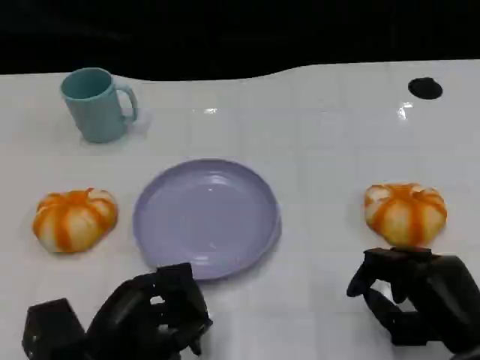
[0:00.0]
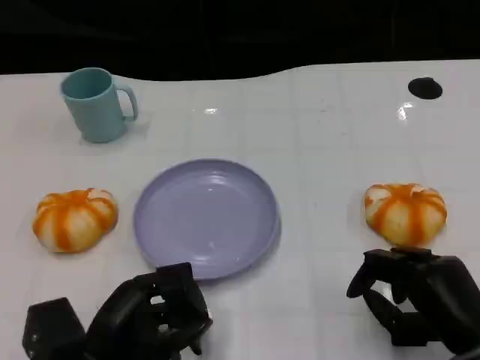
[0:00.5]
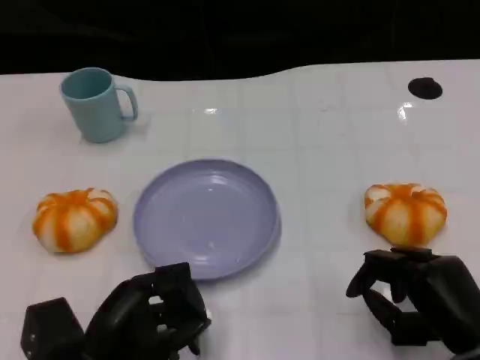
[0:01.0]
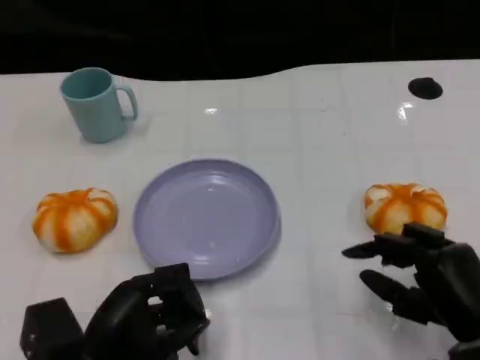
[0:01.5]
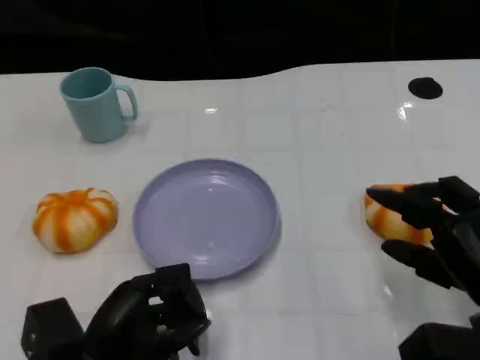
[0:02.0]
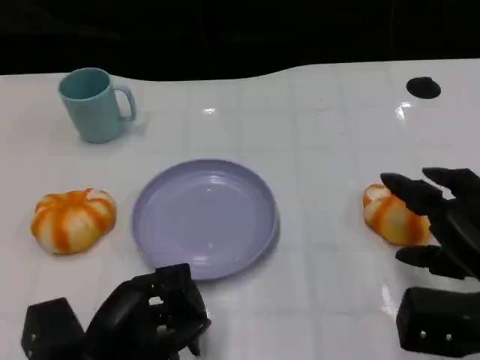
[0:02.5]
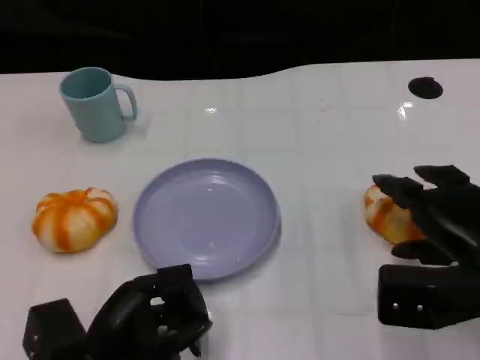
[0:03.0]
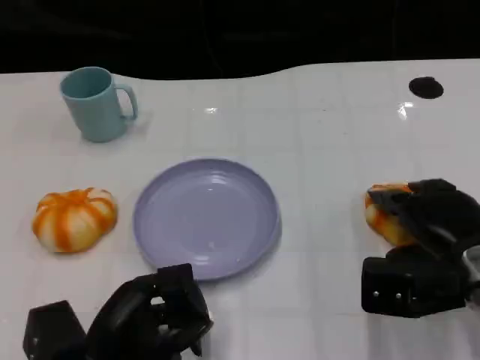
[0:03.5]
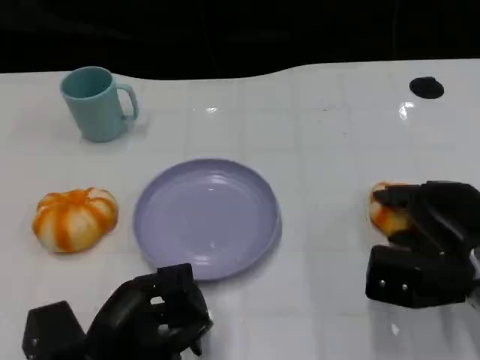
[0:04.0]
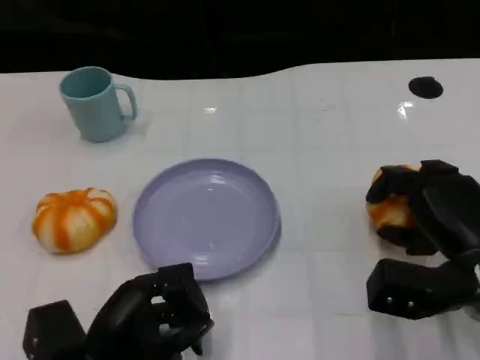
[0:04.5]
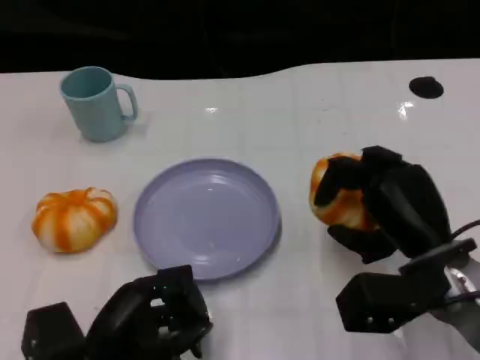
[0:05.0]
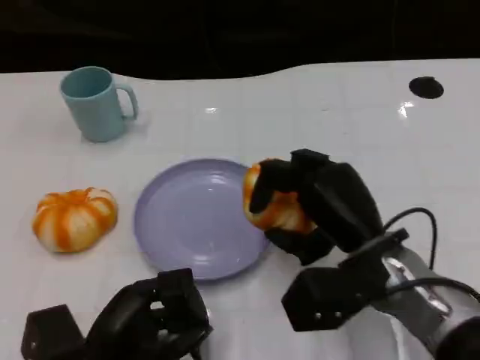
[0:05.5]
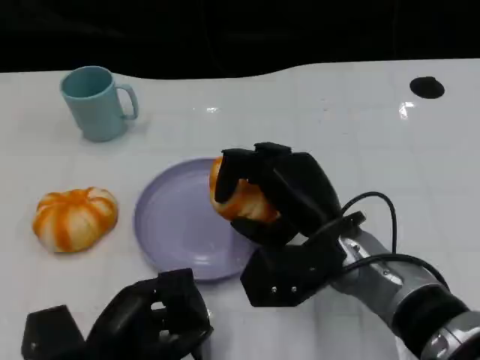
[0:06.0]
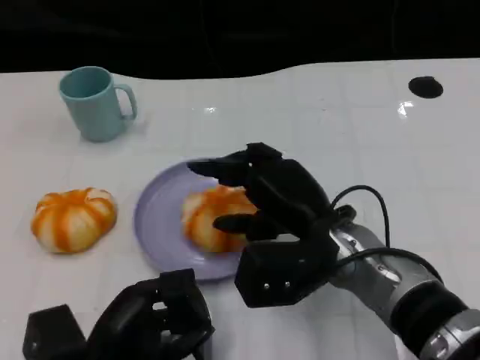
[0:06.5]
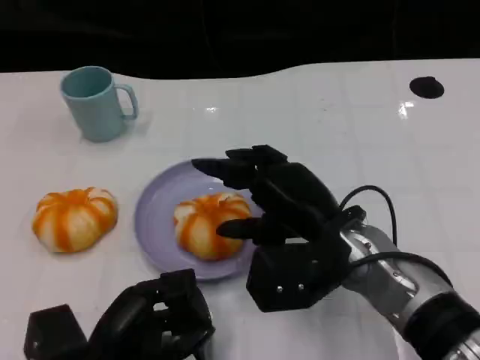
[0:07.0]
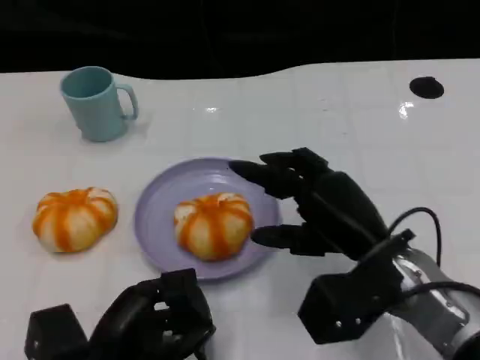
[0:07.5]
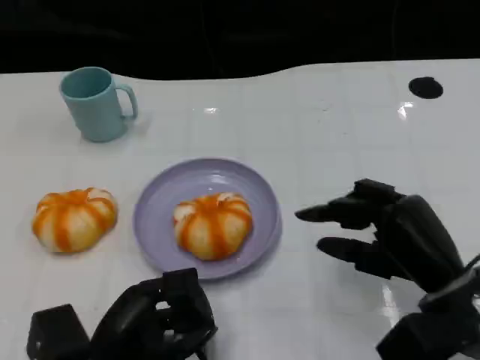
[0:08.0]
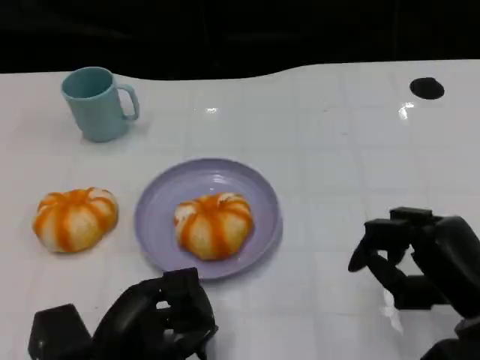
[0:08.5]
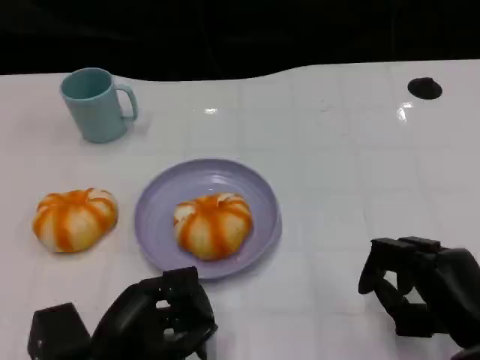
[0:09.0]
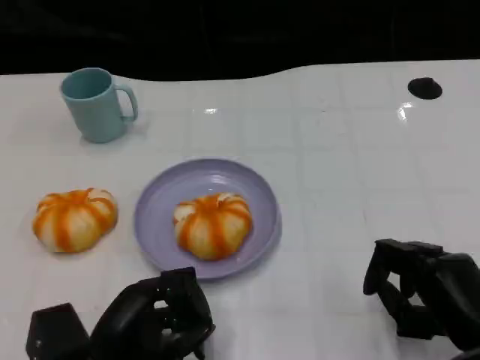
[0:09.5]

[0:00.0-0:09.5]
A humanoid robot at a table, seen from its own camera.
Task of the whole recording: Grasp the bread from the table and place it into the plate.
0:00.0 to 0:02.0: The right hand moves approximately 5 cm.
0:02.0 to 0:04.0: The right hand goes some 5 cm forward.
0:04.0 to 0:05.5: The right hand shifts approximately 10 cm to the left.
0:05.5 to 0:07.5: The hands stay close to where they were, moving slightly.
0:07.5 to 0:09.5: The right hand shifts approximately 10 cm to the right, backward and downward.

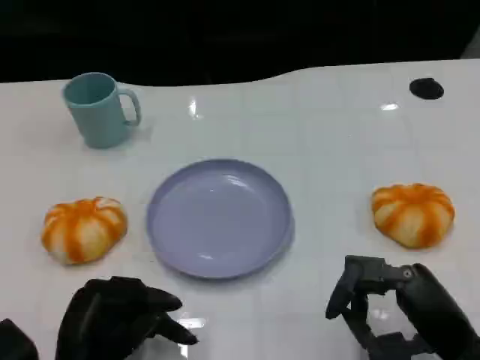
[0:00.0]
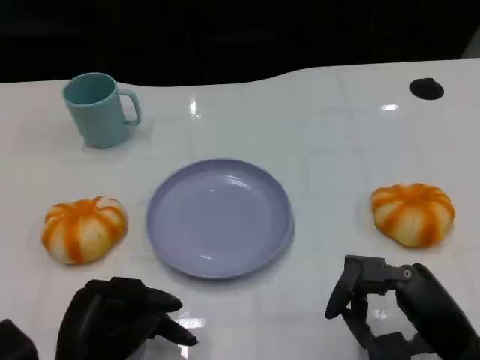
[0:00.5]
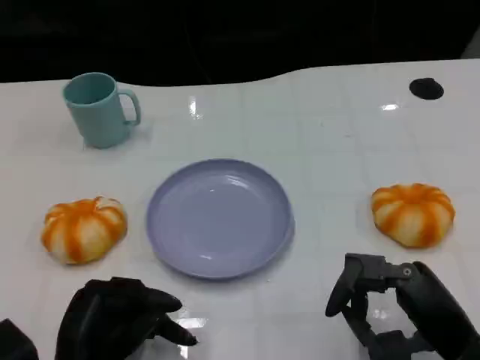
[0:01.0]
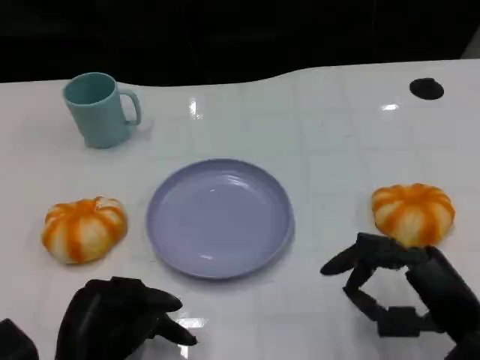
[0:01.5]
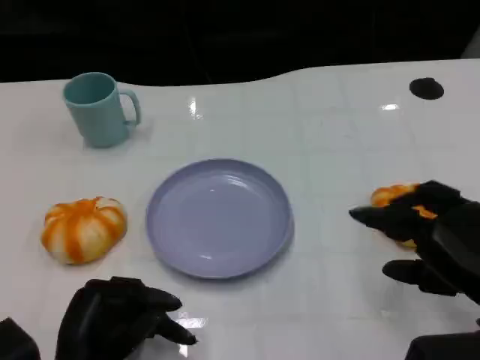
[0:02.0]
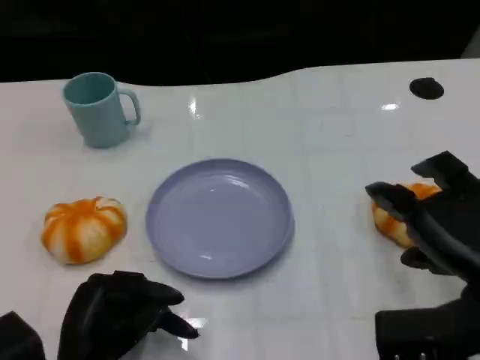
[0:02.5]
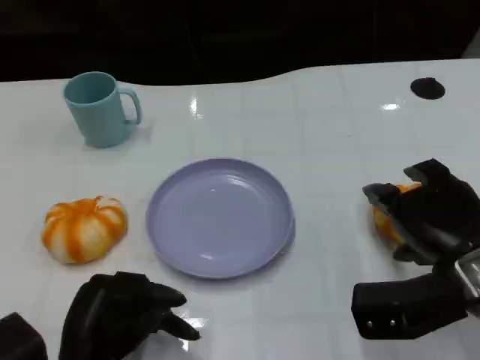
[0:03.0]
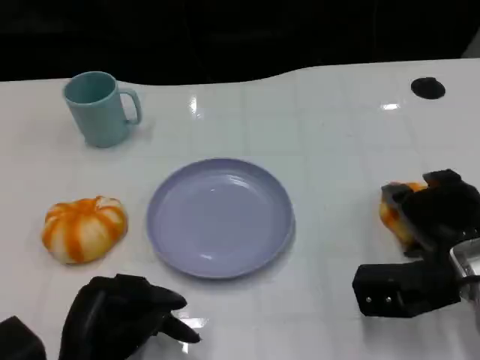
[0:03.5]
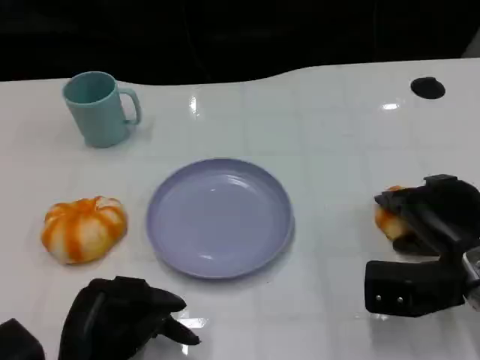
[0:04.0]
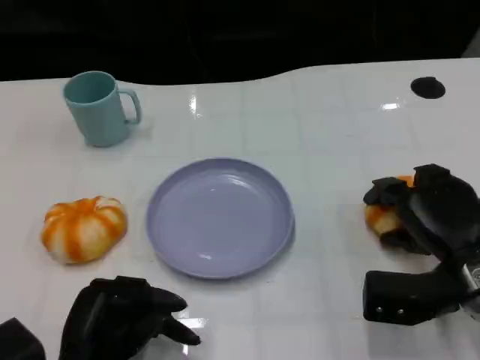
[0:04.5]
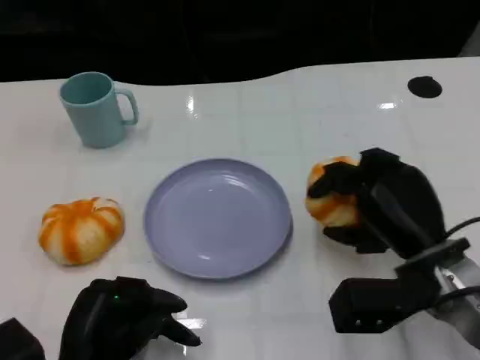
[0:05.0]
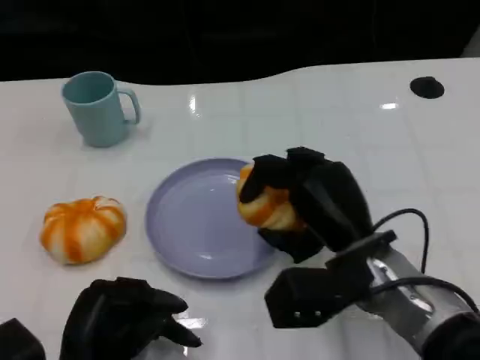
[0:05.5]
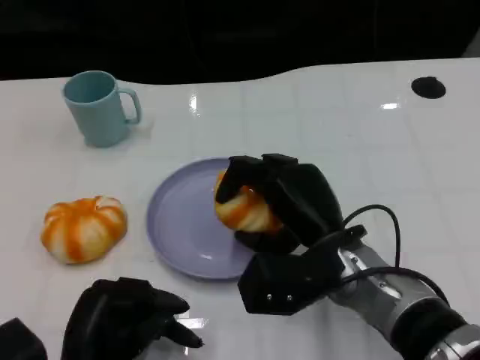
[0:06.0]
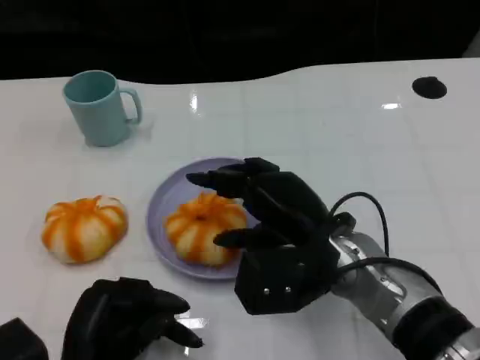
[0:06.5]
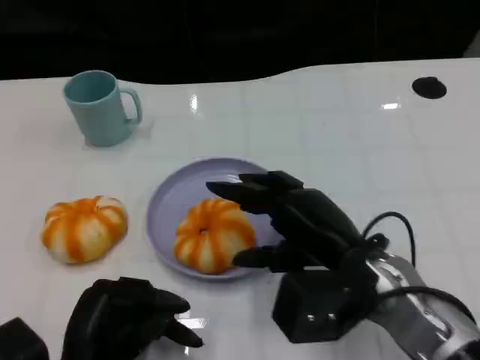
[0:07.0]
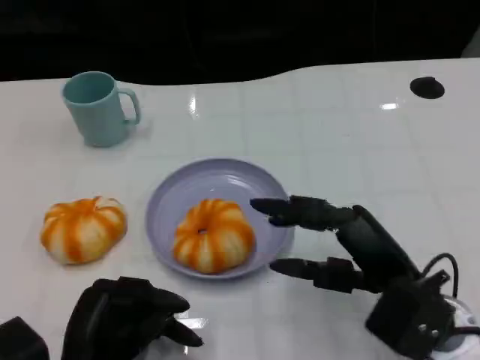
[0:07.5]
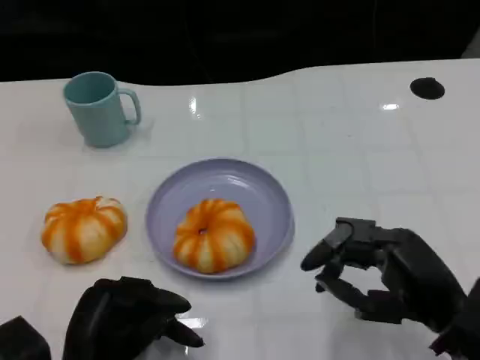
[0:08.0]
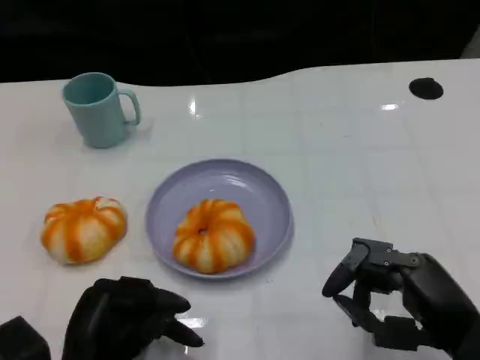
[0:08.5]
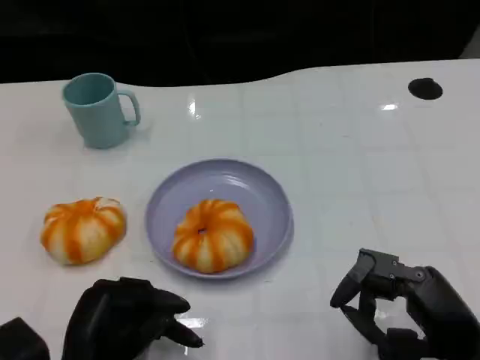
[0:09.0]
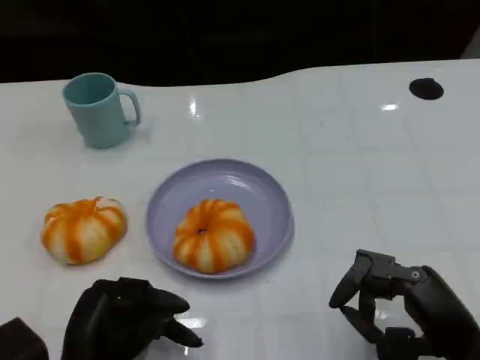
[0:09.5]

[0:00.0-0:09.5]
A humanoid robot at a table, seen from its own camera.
Task of the whole recording: Grasp the bread from the table and place it into the plate.
0:00.0 to 0:02.0: The right hand moves some 5 cm.
0:02.0 to 0:04.0: The right hand is displaced forward and downward by about 10 cm.
0:04.0 to 0:05.5: The right hand goes some 10 cm to the left.
0:05.5 to 0:07.5: The right hand moves to the right, some 5 cm.
0:07.5 to 0:09.5: The right hand moves to the right, about 5 cm.

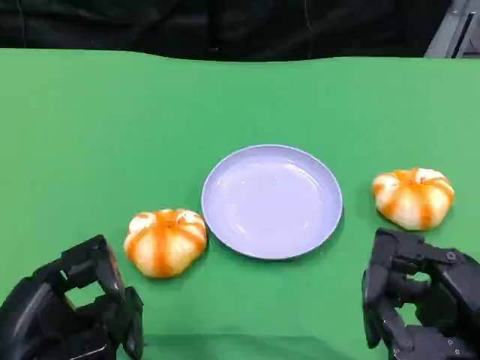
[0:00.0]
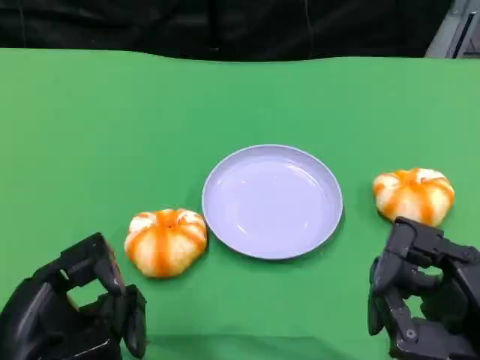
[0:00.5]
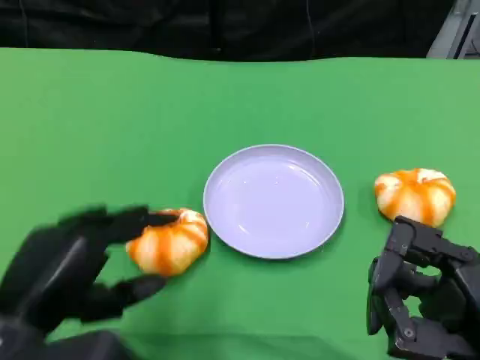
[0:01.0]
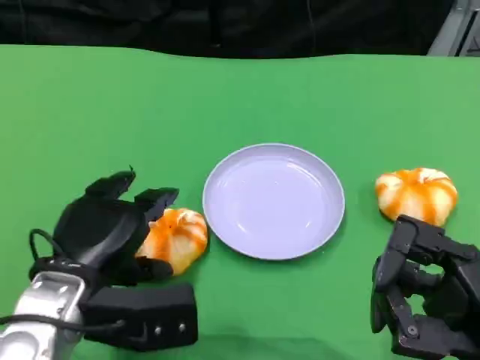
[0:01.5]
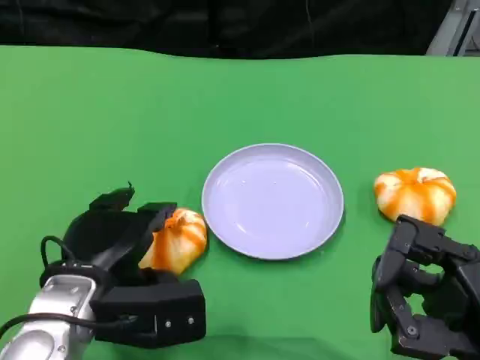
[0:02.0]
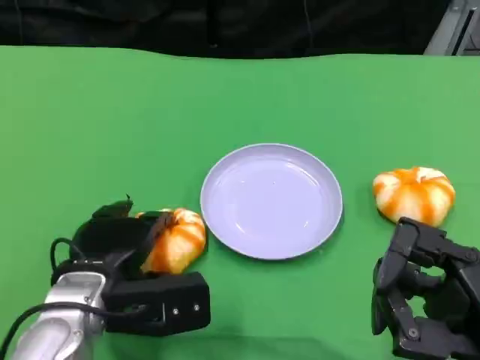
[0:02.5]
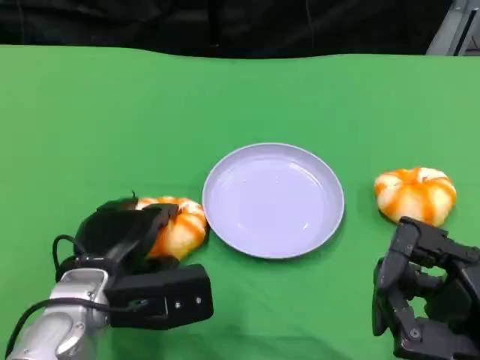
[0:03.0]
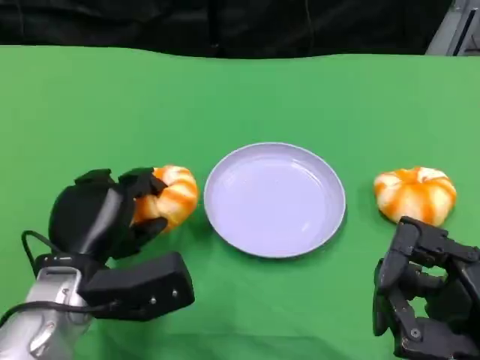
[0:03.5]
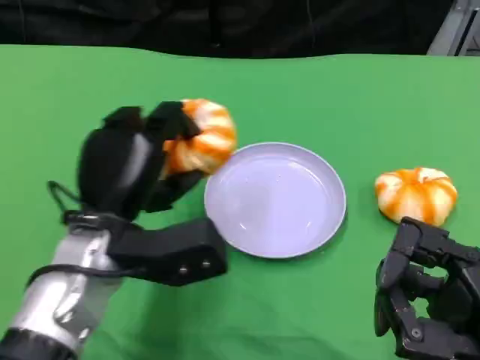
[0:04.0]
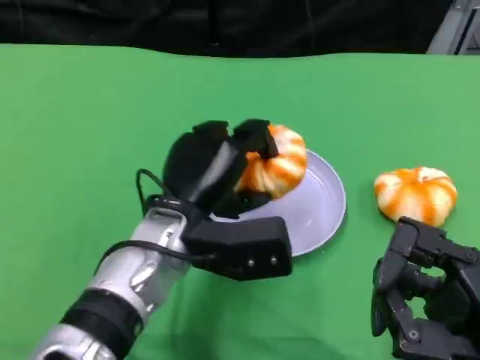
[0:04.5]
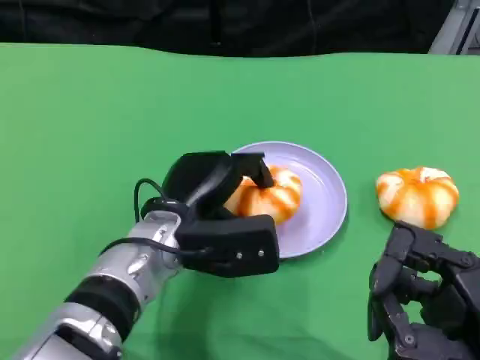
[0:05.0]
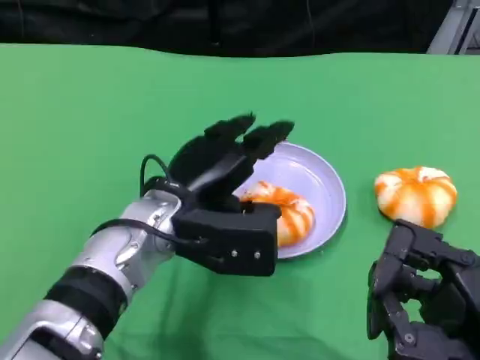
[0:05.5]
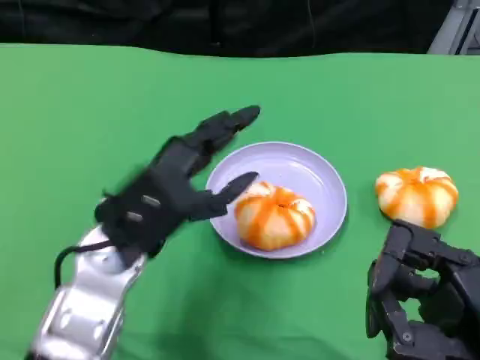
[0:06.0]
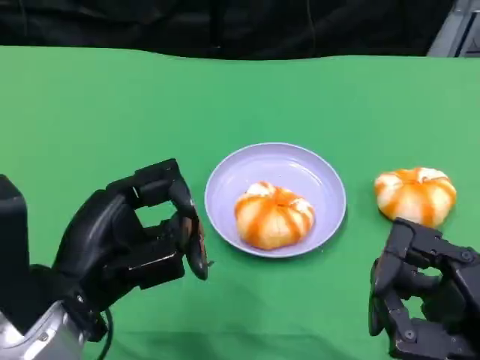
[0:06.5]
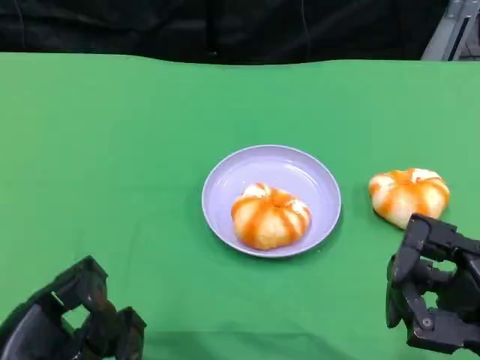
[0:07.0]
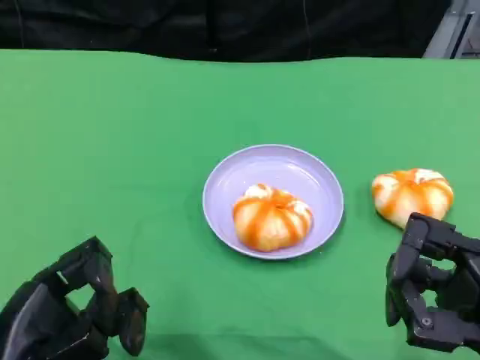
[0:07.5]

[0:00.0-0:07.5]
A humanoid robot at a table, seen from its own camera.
Task of the whole recording: Grasp the bread from the table and place it into the plate.
0:00.0 to 0:02.0: The left hand travels forward and to the right by approximately 10 cm.
0:02.0 to 0:04.0: The left hand shifts by approximately 5 cm.
0:04.0 to 0:05.5: The left hand changes place by roughly 5 cm.
0:05.5 to 0:07.5: The left hand shifts some 20 cm backward and to the left.
